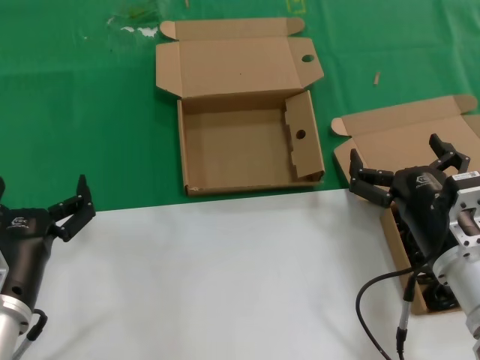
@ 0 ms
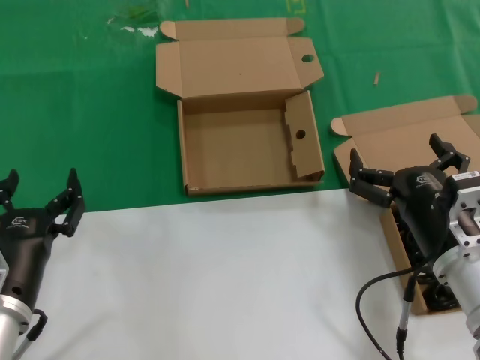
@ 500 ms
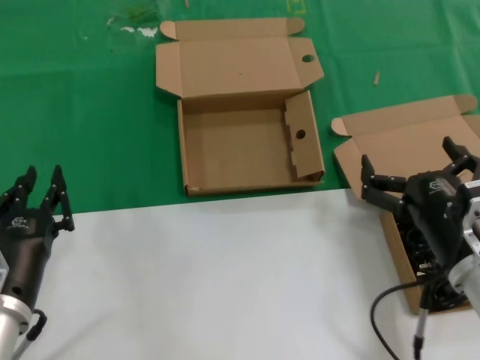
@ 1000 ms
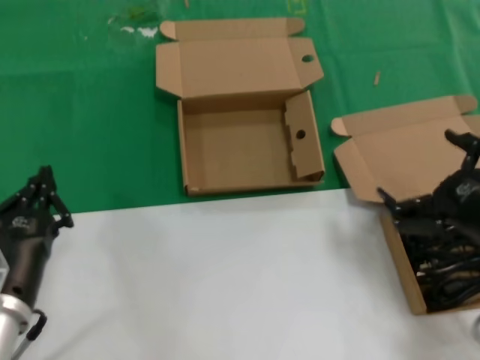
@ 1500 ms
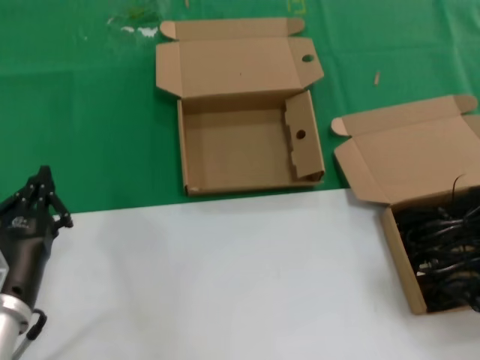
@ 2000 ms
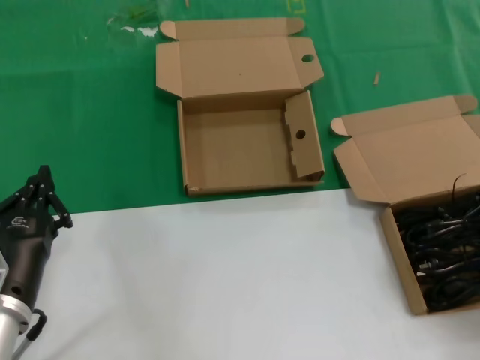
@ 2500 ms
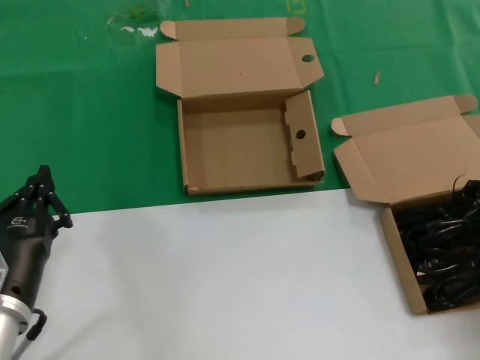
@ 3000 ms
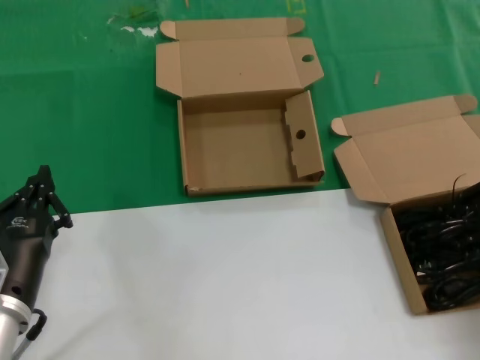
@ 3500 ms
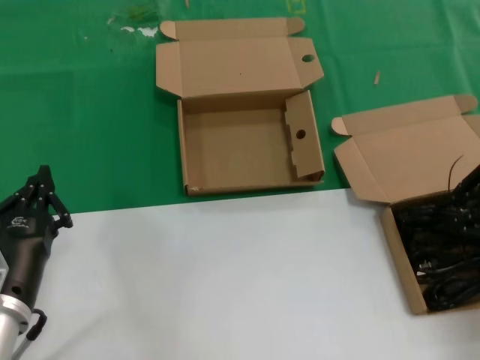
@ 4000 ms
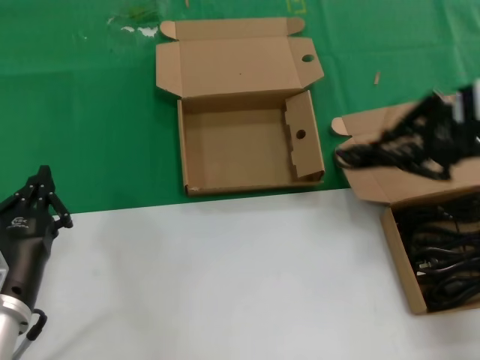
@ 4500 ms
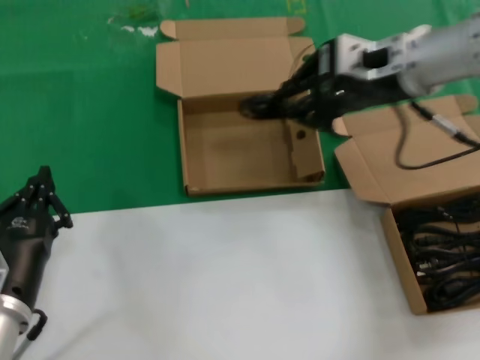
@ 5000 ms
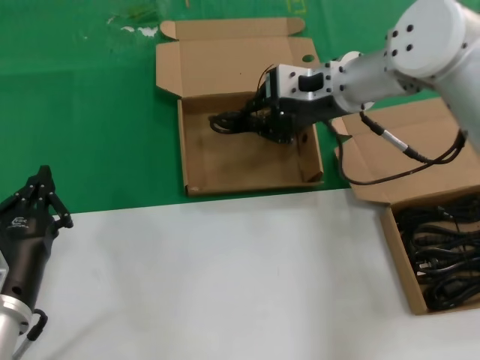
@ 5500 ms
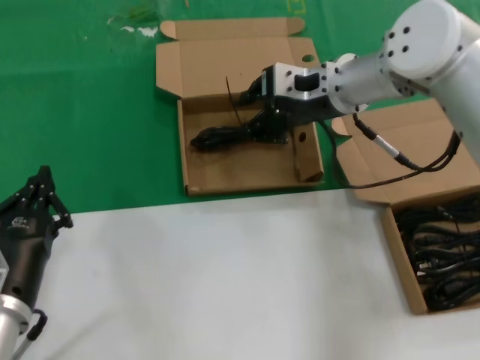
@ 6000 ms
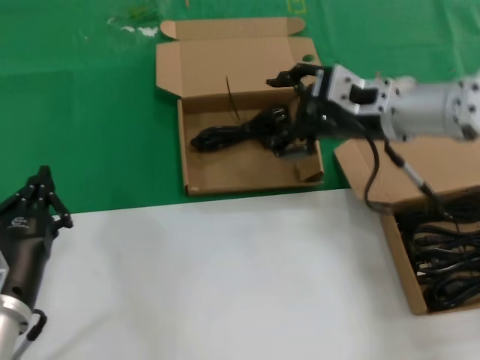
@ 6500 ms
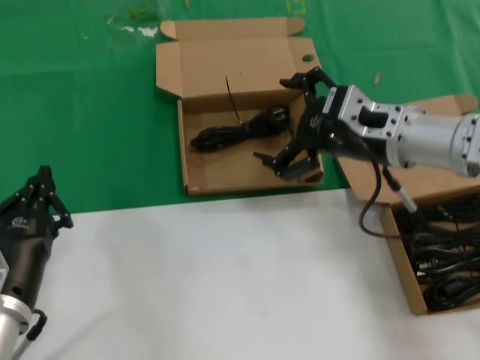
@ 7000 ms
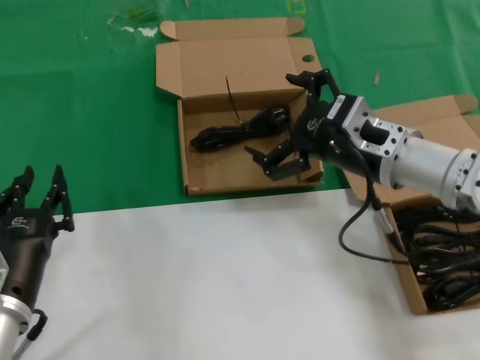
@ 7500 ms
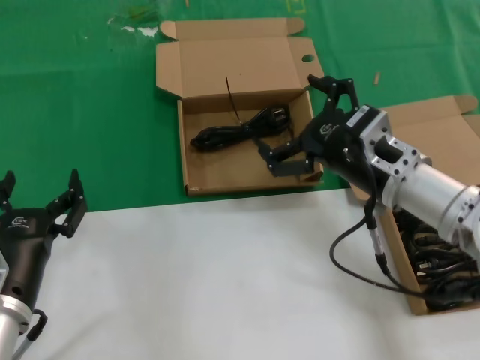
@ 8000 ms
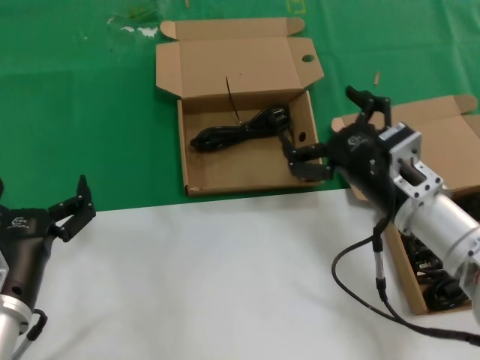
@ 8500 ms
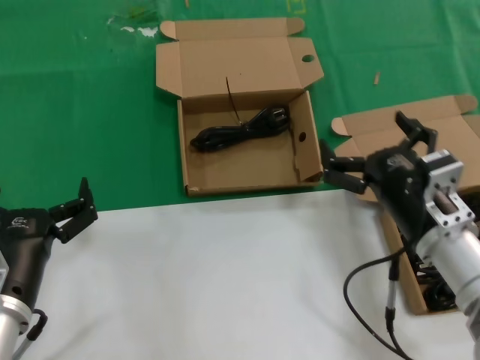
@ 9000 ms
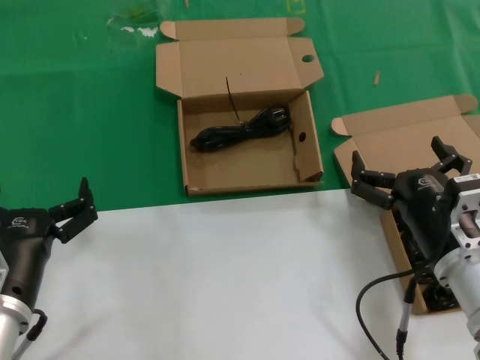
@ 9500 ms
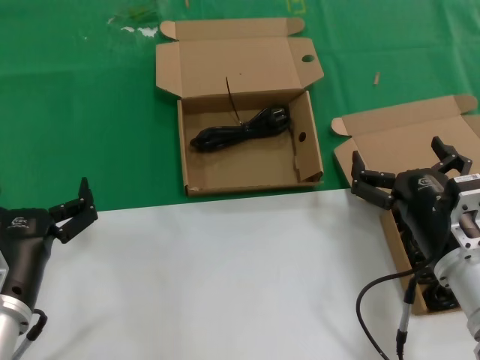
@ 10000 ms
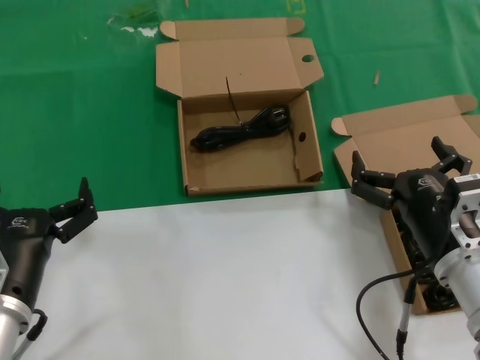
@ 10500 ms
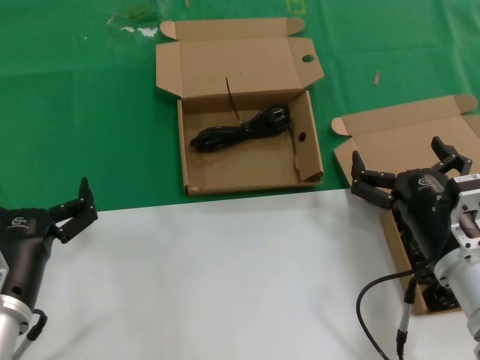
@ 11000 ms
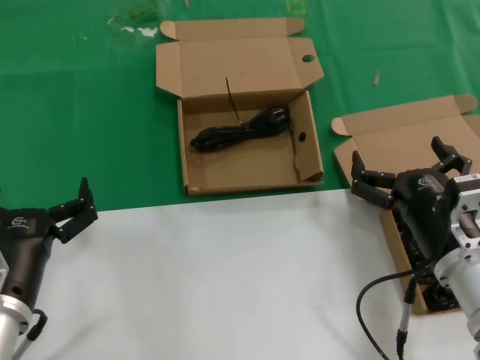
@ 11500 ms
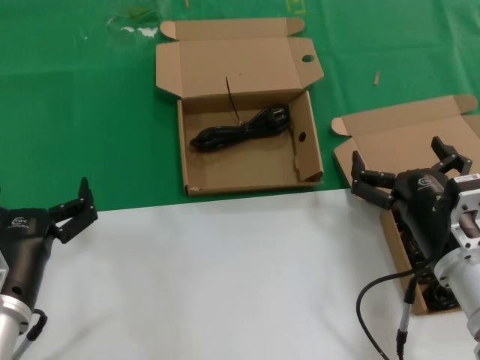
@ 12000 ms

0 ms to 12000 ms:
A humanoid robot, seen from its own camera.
Task of the whole recording: take the parts from the box containing them and put them into an empty box.
Step, 0 ms to 3500 ms: Grasp the data cable.
Step, 4000 ms to 6500 ms: Place the data cable in the another box.
0 ms to 2000 ms: The right hand is displaced to the right and upward by some 20 cm.
2000 ms to 4000 ms: The right hand moves forward, approximately 10 cm.
4000 ms to 6000 ms: The right hand travels to the left and forward by about 30 cm.
6000 ms to 8000 ms: The right hand shifts roughly 15 cm backward and downward.
8000 ms to 10000 ms: The right hand travels backward and downward by about 10 cm.
10000 ms to 12000 ms: Neither hand changes place.

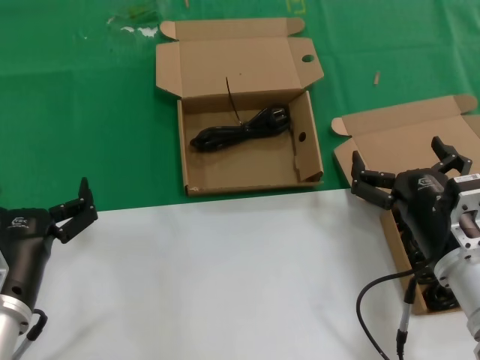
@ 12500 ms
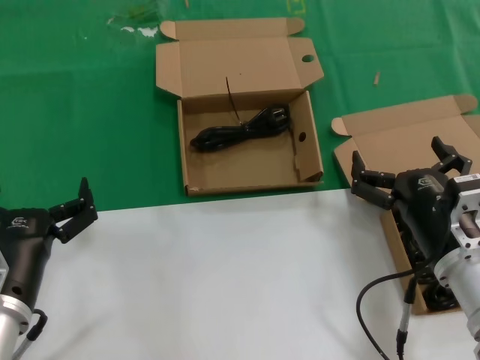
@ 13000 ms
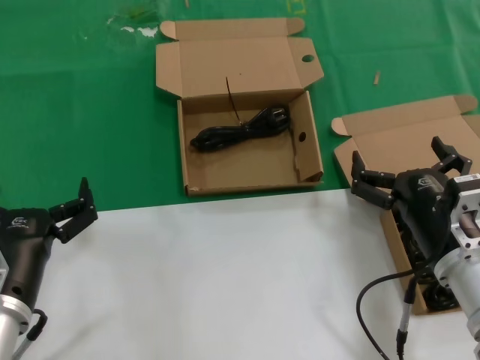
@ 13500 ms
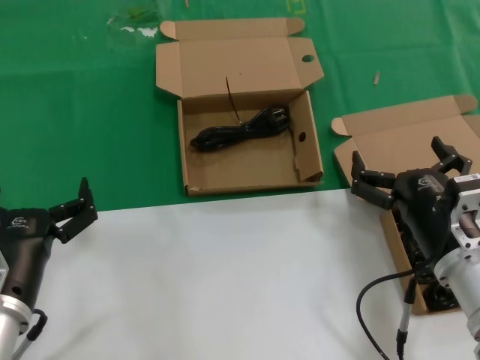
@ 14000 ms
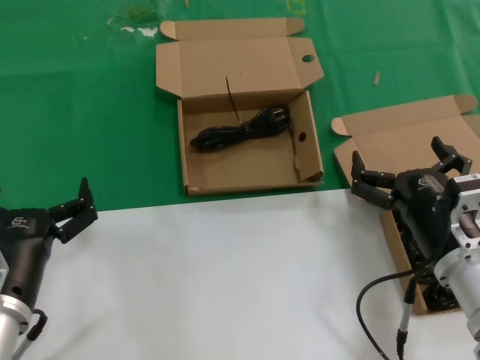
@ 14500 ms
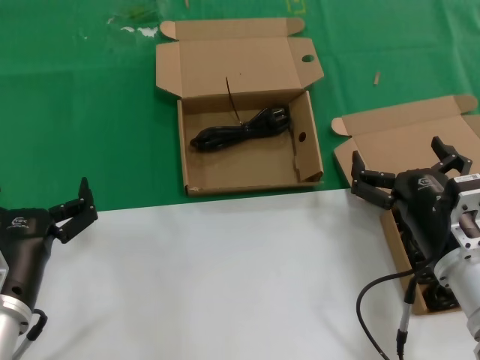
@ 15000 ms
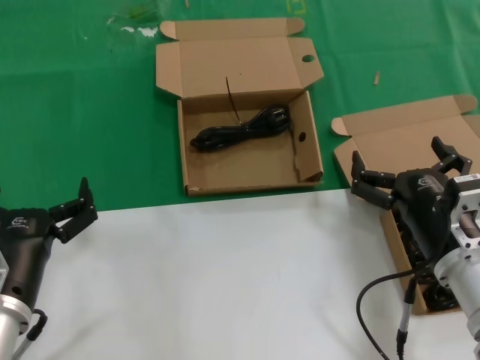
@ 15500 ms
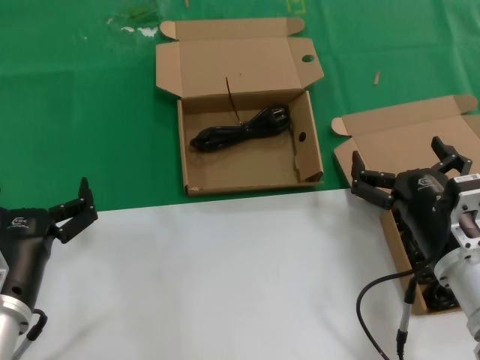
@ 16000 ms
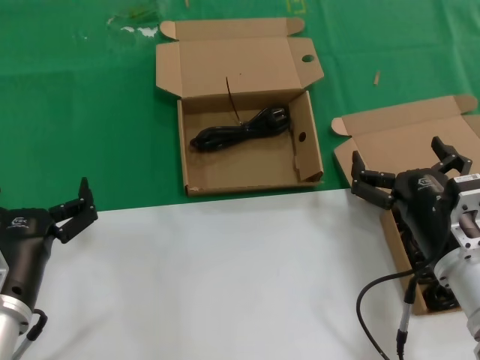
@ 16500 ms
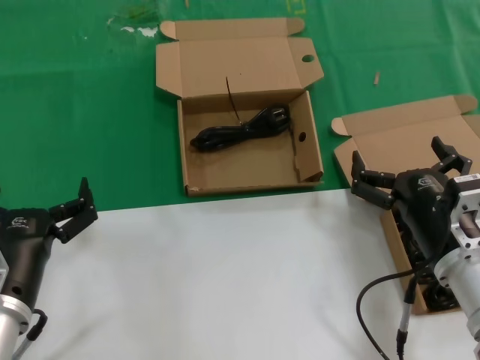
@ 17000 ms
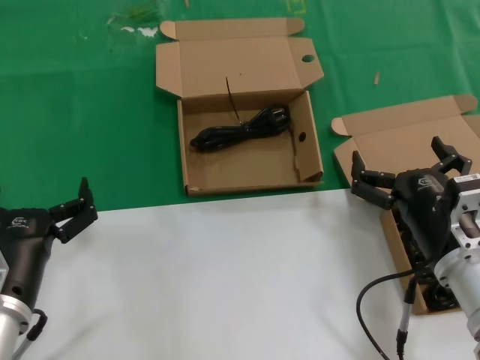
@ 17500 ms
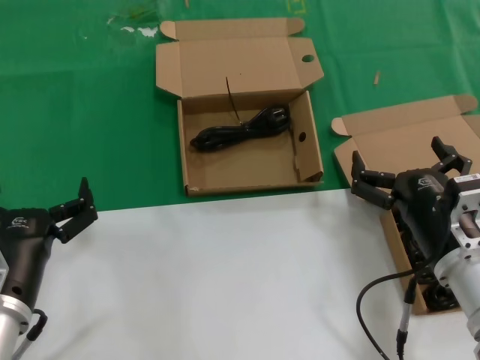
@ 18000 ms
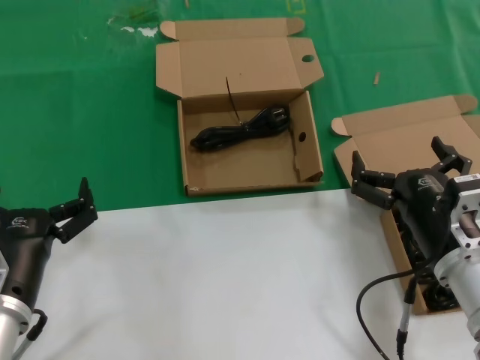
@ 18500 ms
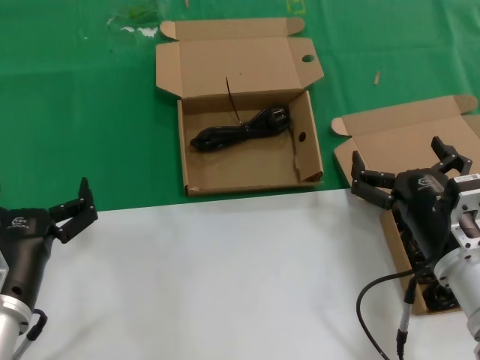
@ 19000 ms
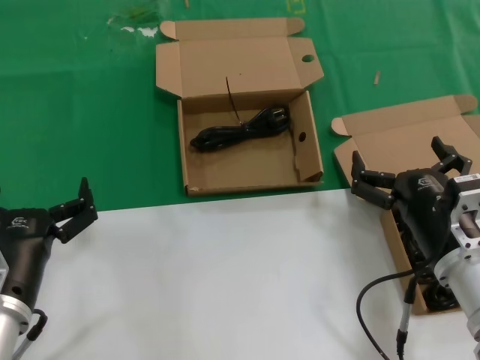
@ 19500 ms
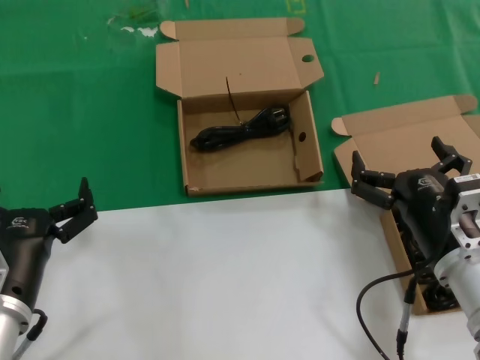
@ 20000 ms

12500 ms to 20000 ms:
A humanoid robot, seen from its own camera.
Task of the whole recording: take the parts from the box containing them and put them into an empty box.
12500 ms to 20000 ms: Neither hand changes place.

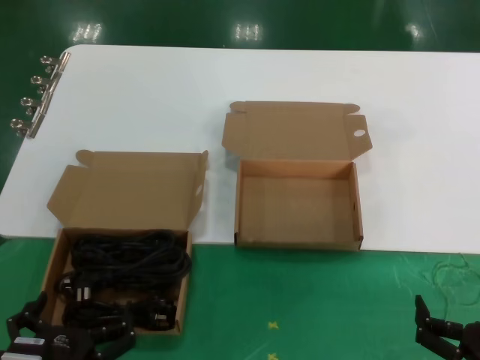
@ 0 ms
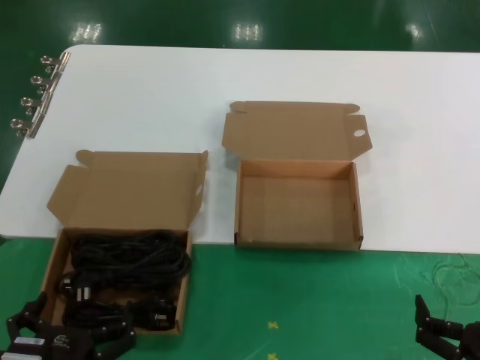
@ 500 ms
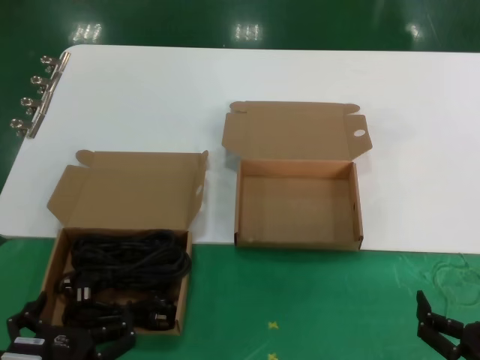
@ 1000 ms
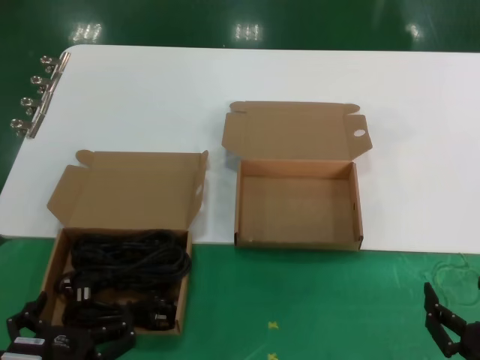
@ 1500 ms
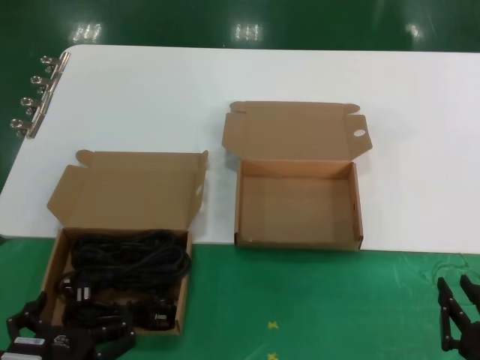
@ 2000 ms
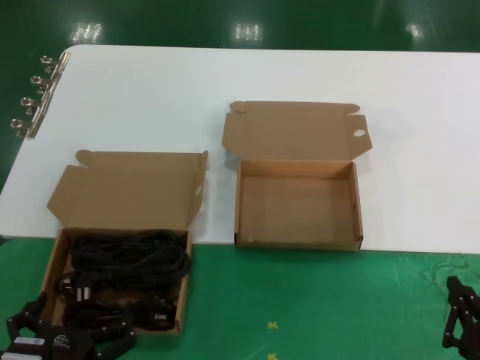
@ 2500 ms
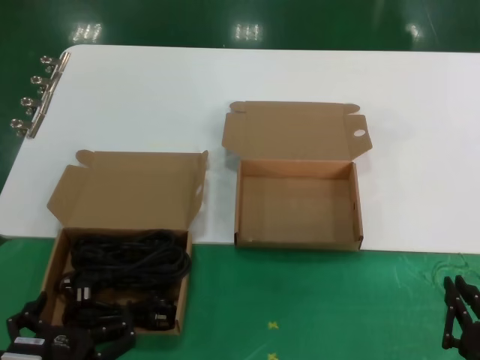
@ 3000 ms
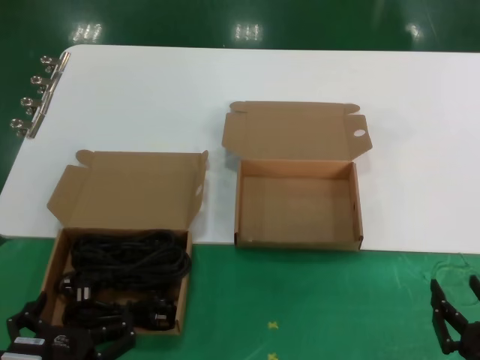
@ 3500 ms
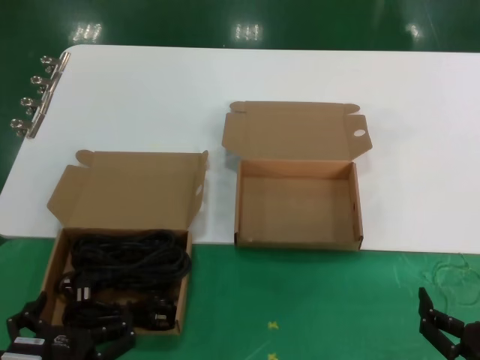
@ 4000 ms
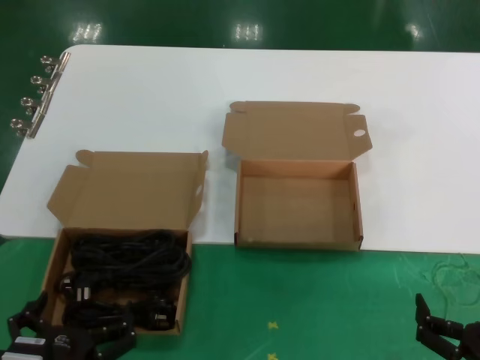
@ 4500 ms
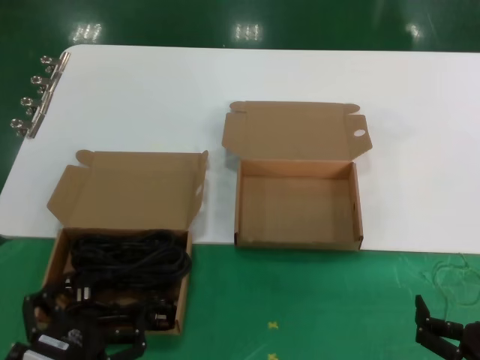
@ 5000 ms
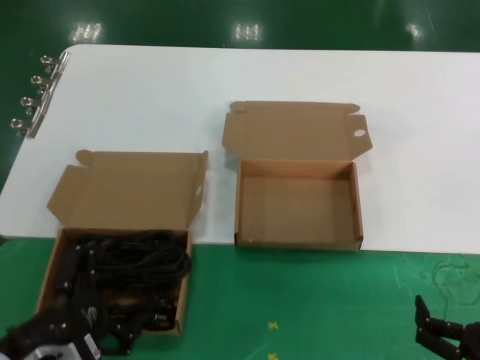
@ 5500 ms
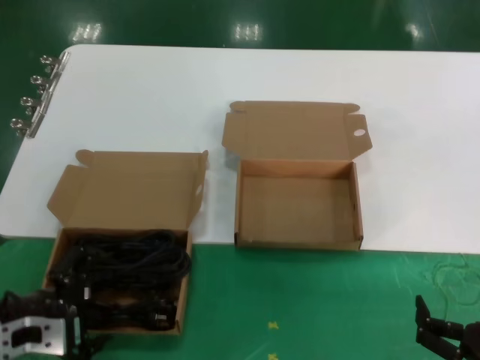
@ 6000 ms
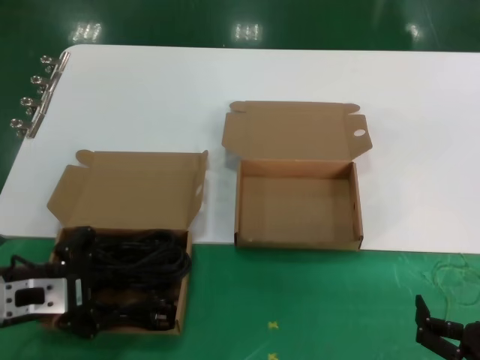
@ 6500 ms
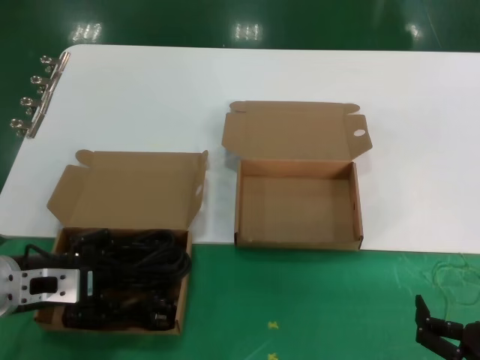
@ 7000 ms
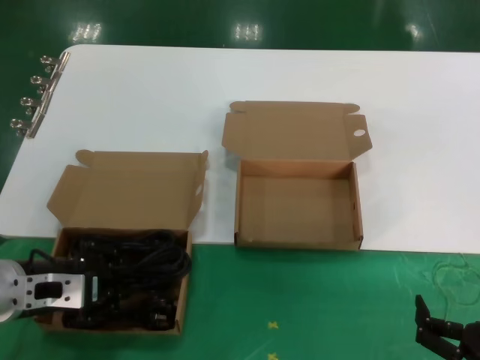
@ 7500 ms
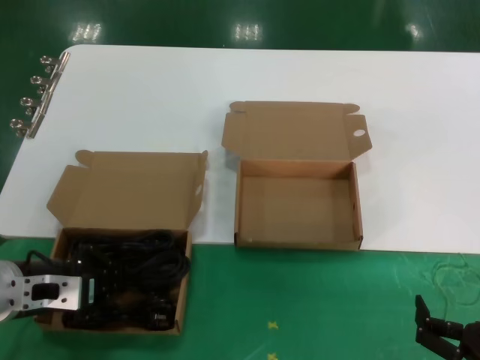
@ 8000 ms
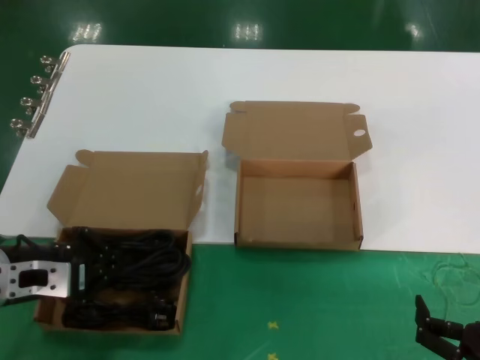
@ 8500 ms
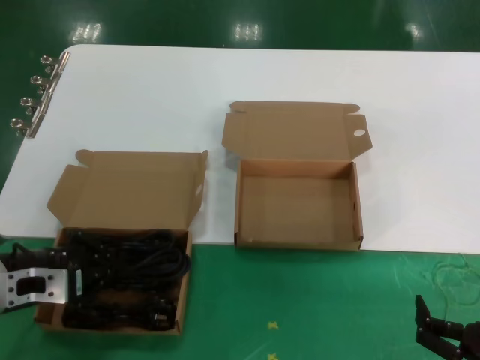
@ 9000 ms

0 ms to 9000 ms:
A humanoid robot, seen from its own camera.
Task of the whole recording: take the parts from the box containing them and put them into an empty box.
Step, 0 ms to 8500 ms: Grasp the data cable.
0 ms to 4500 ms: The two hands keep their place.
4500 ms to 7000 ms: The left hand shifts approximately 25 cm forward, upward and to the left.
7000 ms to 9000 ms: The hands make only small movements.
